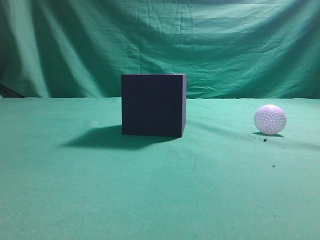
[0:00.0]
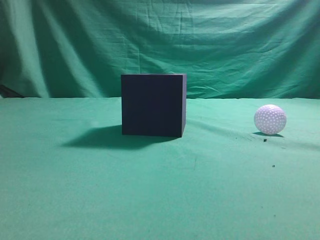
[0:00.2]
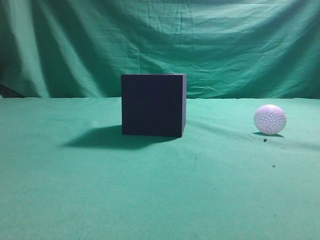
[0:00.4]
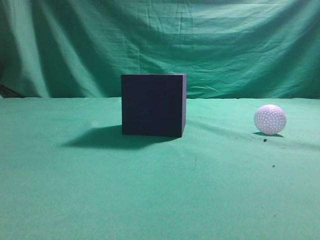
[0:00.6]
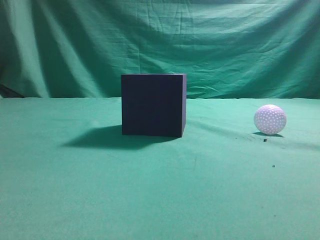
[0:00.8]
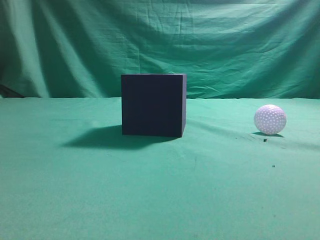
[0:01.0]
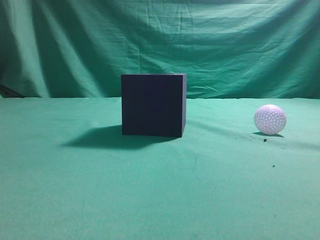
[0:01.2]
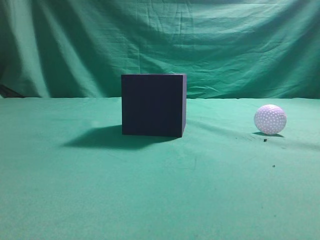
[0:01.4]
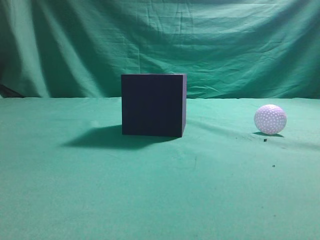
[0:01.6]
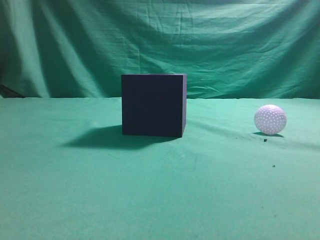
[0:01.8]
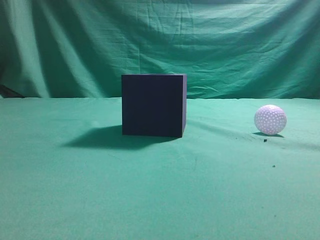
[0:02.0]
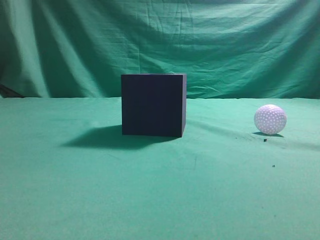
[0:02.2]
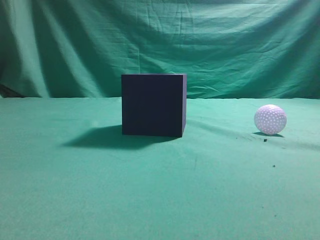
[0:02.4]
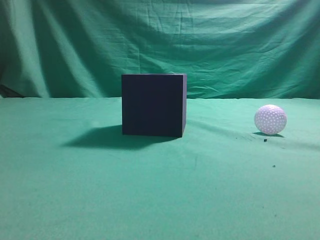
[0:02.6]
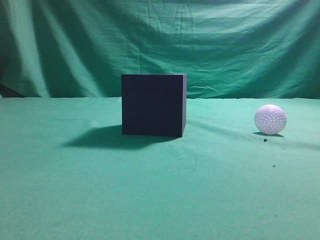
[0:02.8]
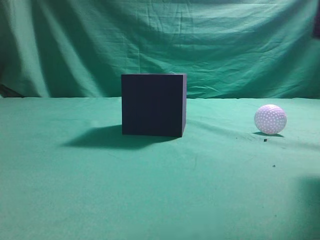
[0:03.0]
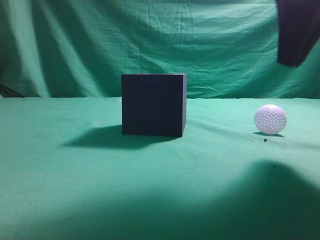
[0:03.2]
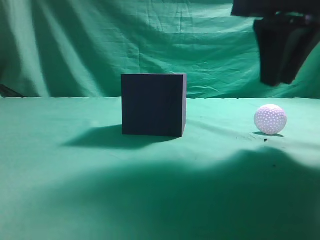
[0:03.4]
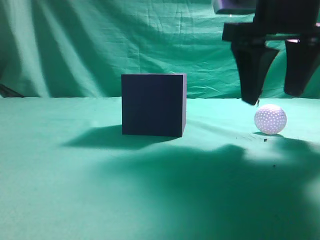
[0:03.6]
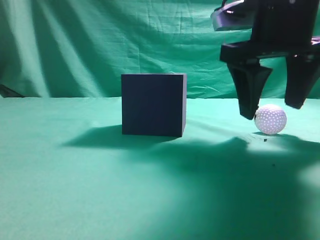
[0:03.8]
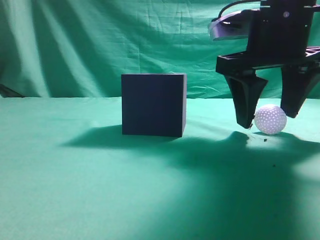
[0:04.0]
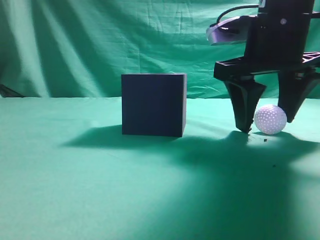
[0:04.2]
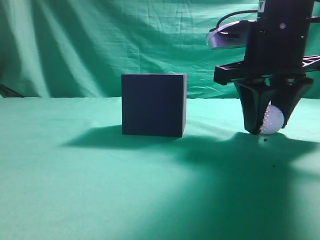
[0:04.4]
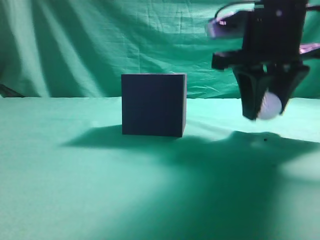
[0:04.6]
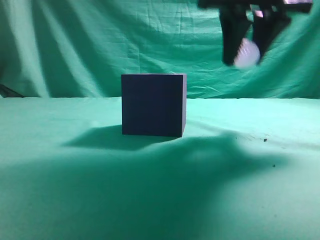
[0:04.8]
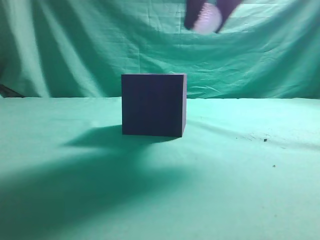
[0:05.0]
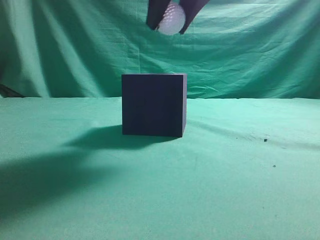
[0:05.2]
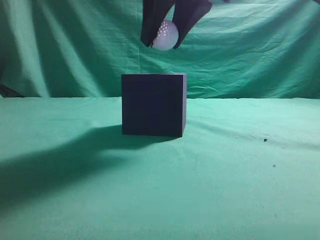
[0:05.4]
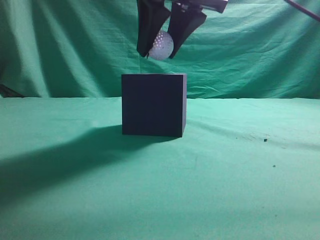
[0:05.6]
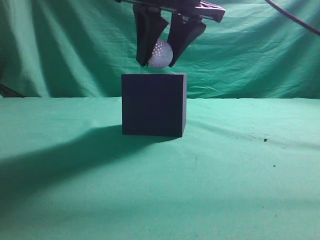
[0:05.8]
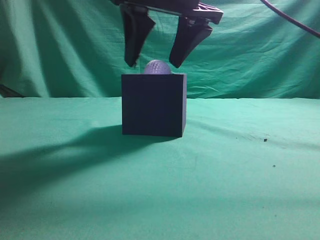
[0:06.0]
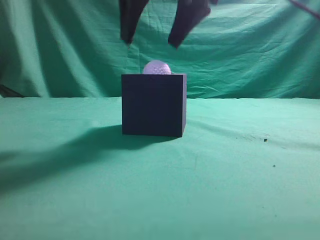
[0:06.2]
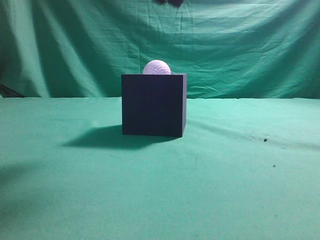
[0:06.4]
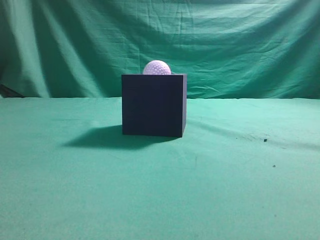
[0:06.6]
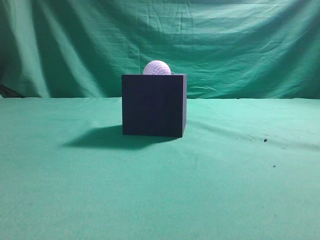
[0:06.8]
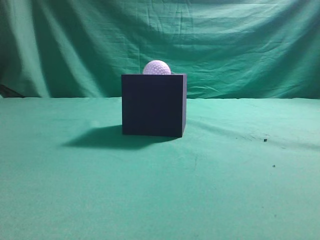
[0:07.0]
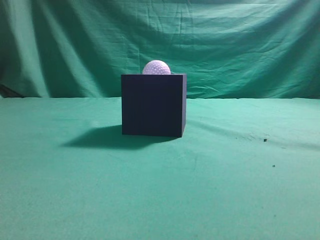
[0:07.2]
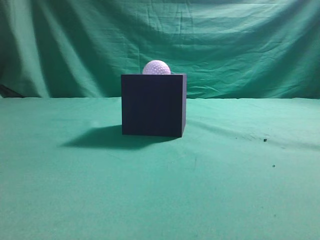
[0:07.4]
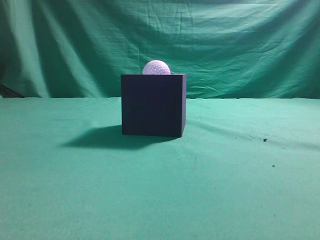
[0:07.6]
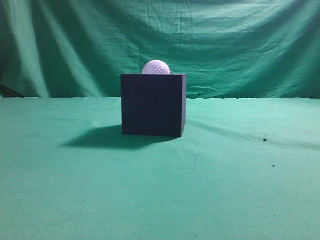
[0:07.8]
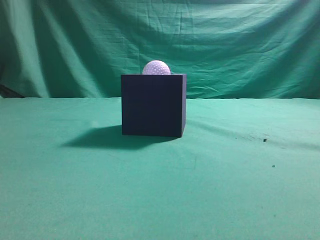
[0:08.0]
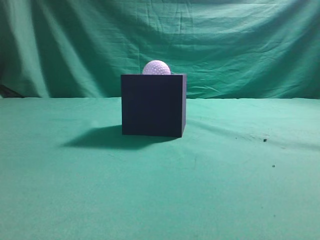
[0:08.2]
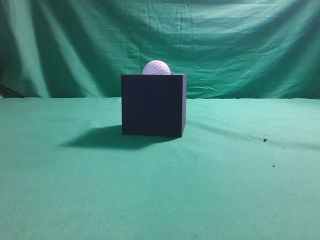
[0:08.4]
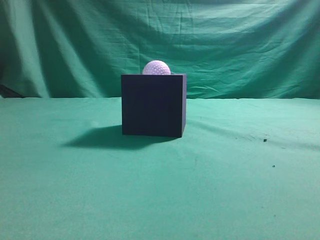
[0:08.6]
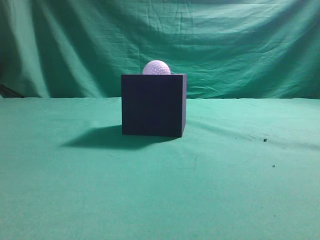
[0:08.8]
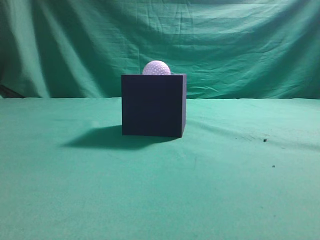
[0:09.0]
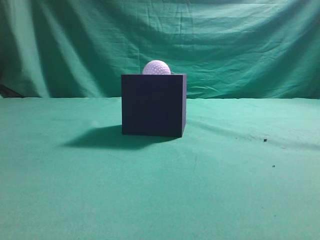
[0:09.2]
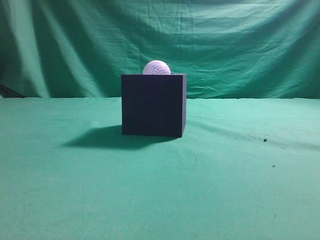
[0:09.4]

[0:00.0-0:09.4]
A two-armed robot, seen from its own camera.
Task of the whole recording: Pick up the ball and place it in the circular groove above the cube.
Step, 0:00.0 to 0:04.6: Grasp the sphere on the table.
Step, 0:04.8 to 0:06.0: Place the sphere into the sphere-shaped recess.
0:01.6 to 0:03.2: The right gripper is displaced forward and to the left by about 25 cm.
0:03.2 to 0:04.8: The right gripper goes about 5 cm forward, reaches approximately 10 cm downward, then returns, and opens up.
0:04.8 to 0:06.2: The right gripper travels to the left by about 10 cm, and opens up.
0:06.2 to 0:07.8: The right gripper shifts approximately 35 cm backward and to the right, and closes its fingers.
